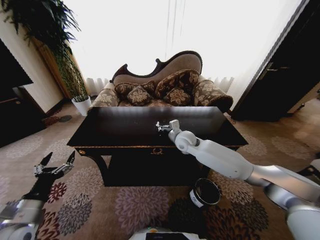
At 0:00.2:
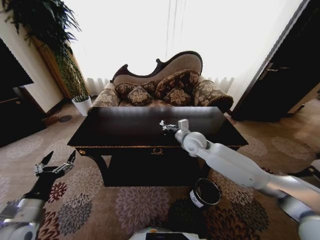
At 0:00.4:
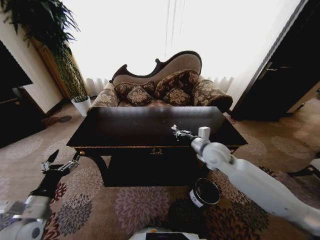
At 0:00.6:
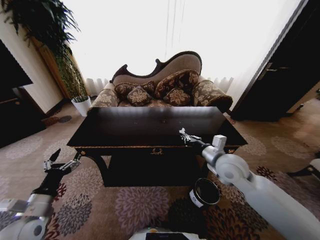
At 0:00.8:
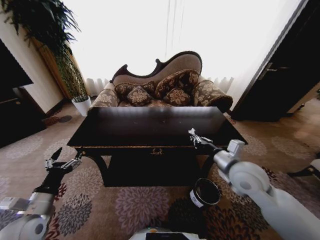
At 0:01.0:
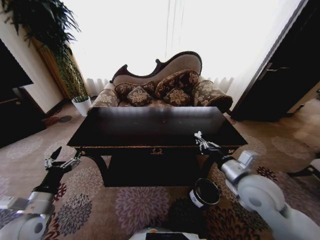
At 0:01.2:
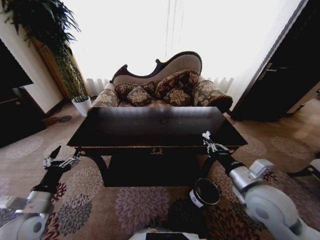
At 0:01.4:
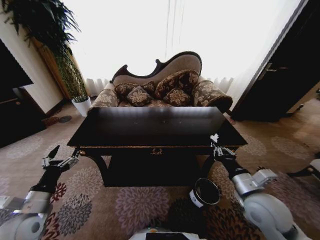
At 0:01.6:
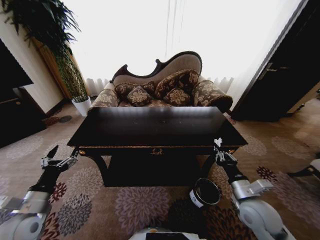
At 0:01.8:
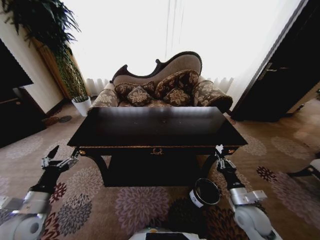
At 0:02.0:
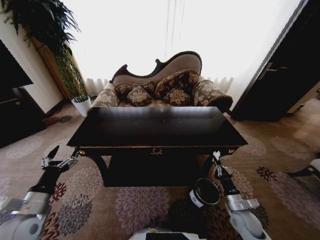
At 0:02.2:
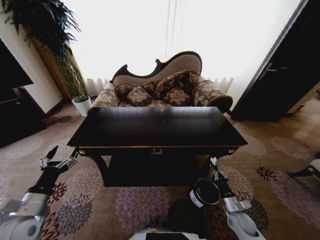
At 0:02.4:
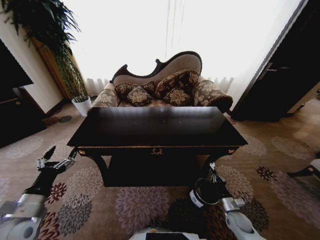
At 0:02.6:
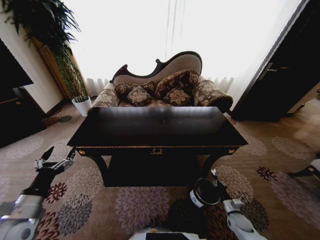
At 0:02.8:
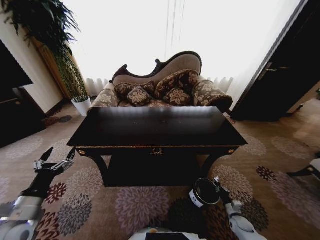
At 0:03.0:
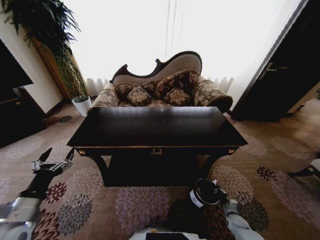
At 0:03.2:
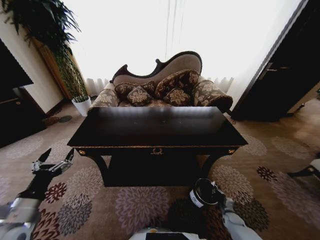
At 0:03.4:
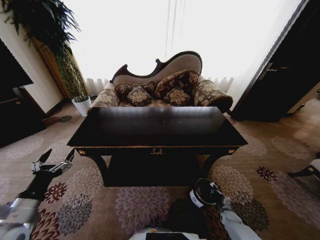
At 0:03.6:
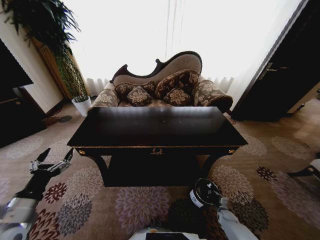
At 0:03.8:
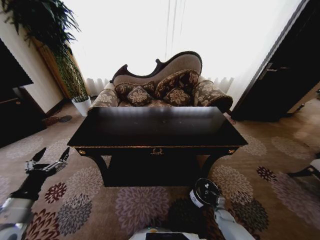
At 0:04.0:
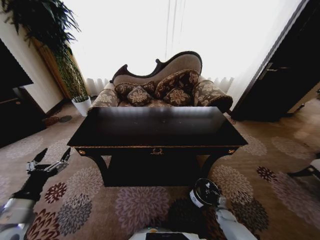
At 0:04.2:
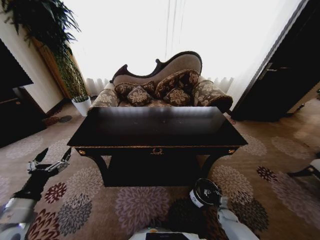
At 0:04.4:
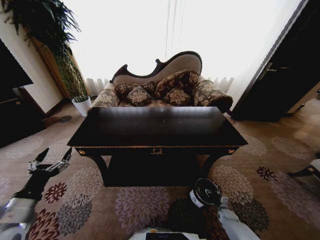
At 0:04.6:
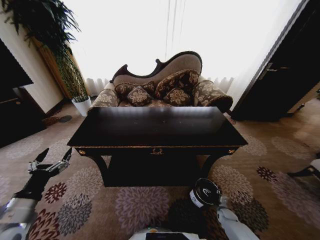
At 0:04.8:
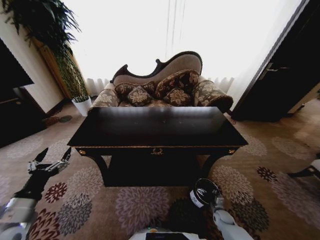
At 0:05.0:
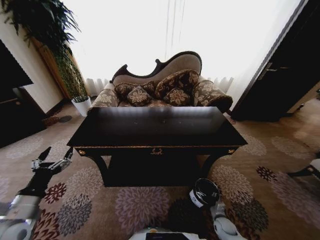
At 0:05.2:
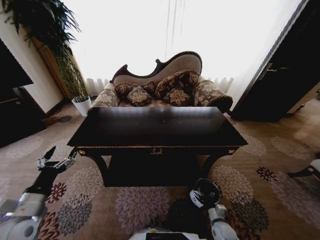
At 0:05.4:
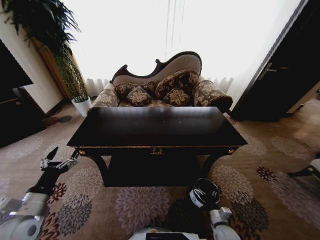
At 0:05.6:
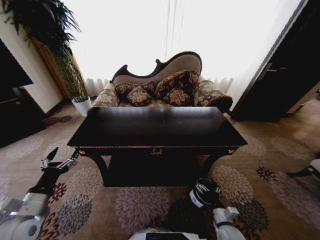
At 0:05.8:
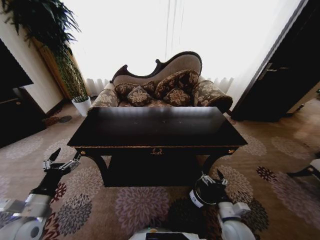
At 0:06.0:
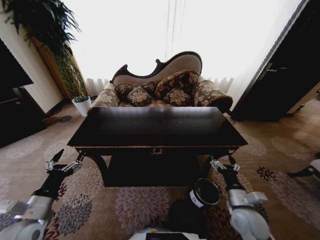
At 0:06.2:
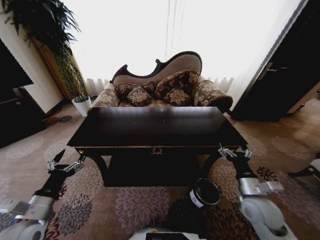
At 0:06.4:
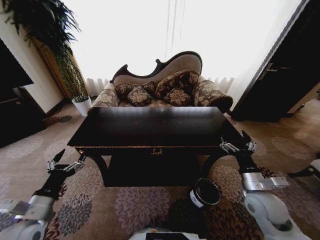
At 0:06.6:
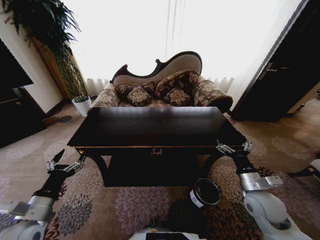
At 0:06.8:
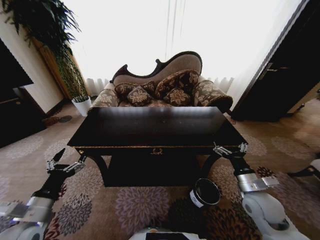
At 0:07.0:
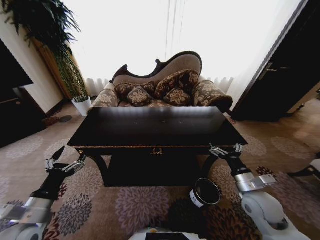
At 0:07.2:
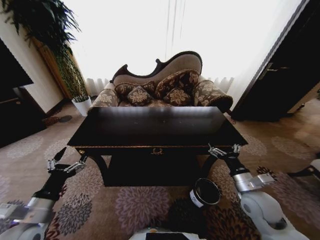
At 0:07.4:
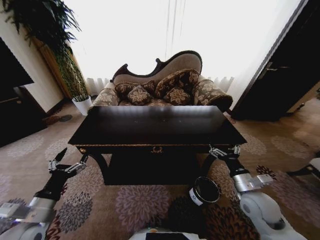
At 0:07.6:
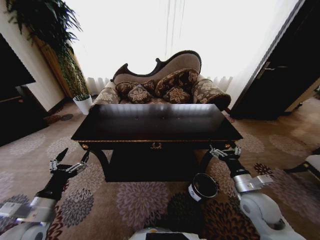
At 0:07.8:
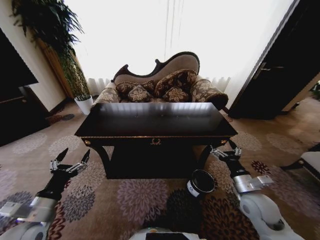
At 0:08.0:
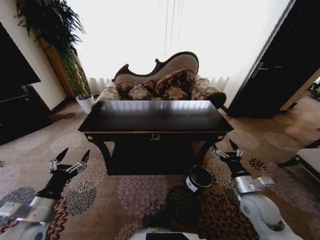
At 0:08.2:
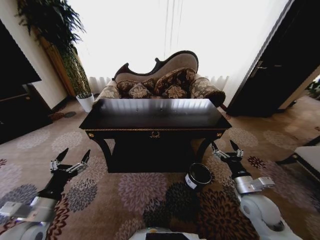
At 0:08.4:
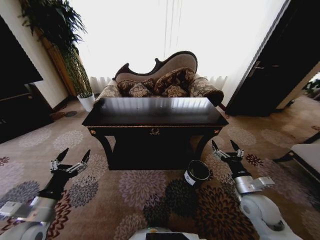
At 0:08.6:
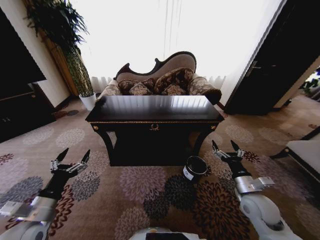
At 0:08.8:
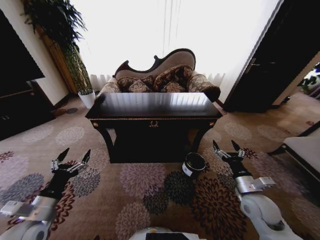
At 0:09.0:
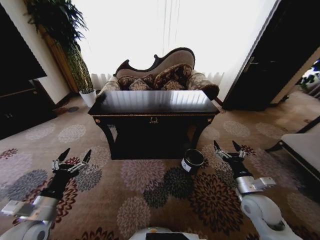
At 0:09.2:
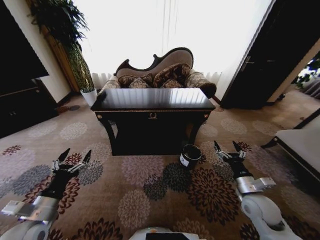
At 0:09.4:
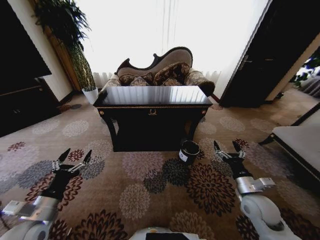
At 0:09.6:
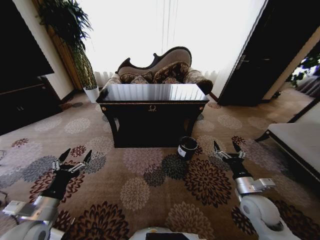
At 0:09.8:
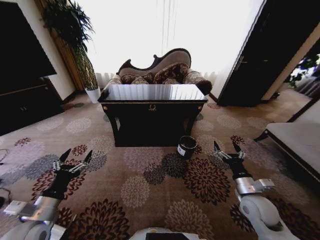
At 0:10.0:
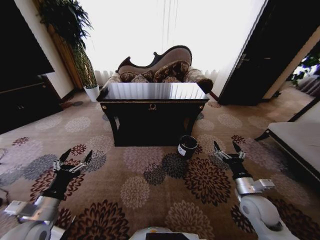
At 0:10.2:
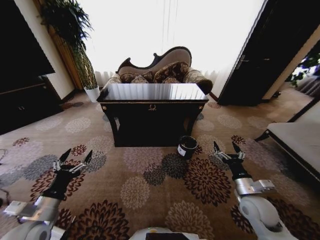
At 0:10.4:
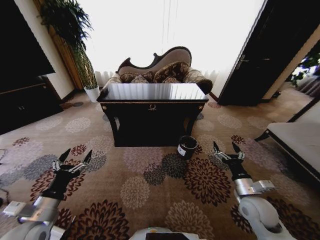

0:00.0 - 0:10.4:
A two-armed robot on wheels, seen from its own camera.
Task of the whole recording: Move to the front of the table and place the trash on the table into the trash bin.
0:00.0 - 0:01.4: The right gripper moves backward and to the right, some 30 cm.
0:01.4 - 0:03.0: The right gripper shifts some 40 cm downward.
0:03.0 - 0:04.4: The right gripper opens its fingers.
0:04.4 - 0:06.0: The right gripper shifts about 30 cm upward, and opens its fingers.
0:06.0 - 0:07.4: The right gripper heads upward, covering approximately 5 cm.
